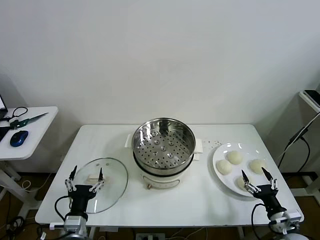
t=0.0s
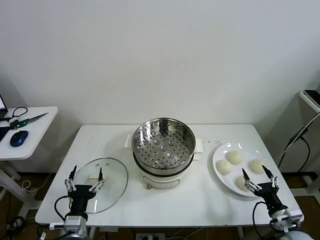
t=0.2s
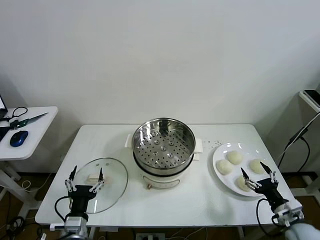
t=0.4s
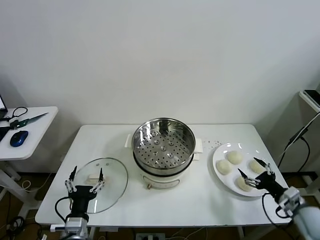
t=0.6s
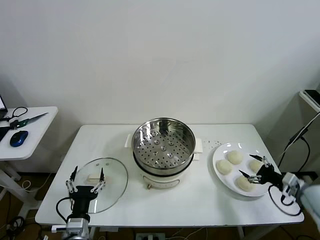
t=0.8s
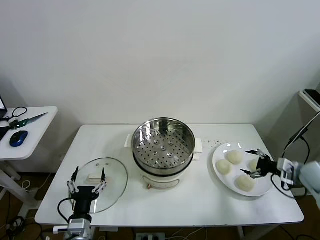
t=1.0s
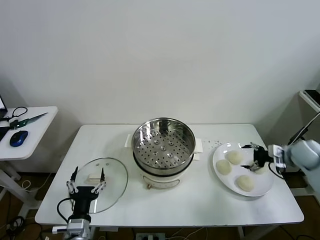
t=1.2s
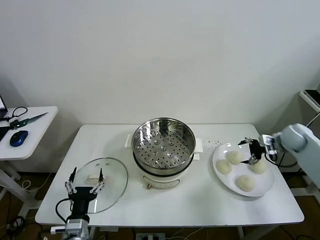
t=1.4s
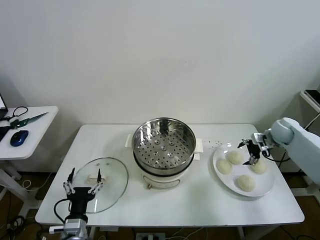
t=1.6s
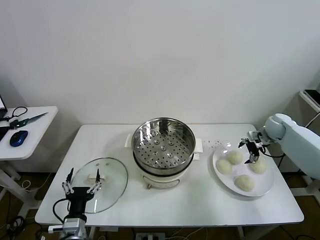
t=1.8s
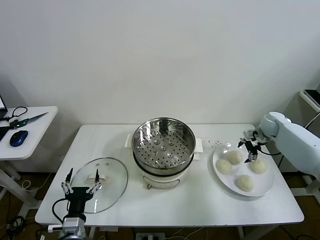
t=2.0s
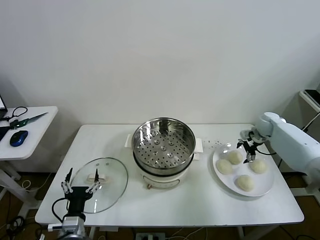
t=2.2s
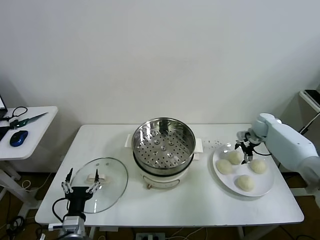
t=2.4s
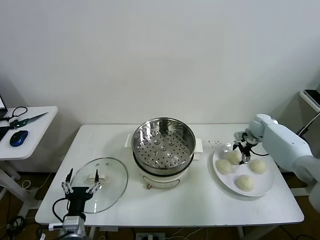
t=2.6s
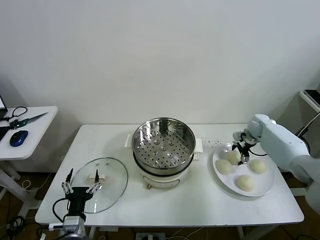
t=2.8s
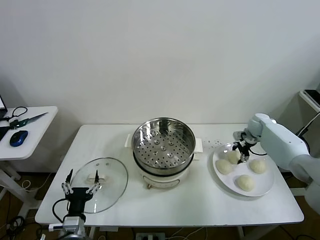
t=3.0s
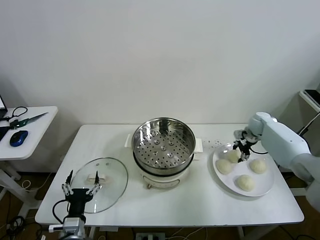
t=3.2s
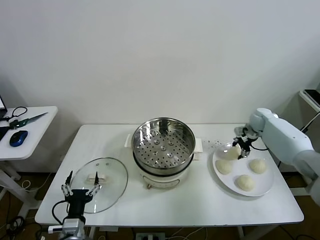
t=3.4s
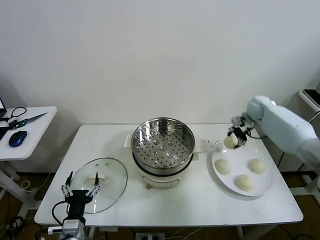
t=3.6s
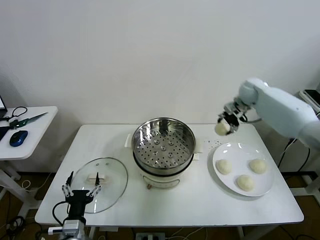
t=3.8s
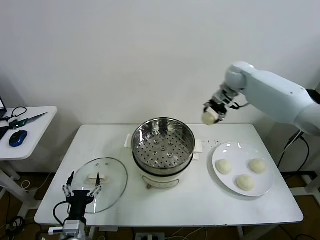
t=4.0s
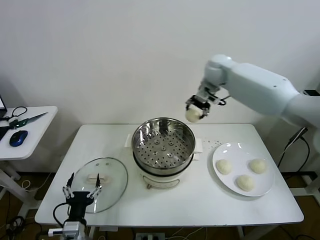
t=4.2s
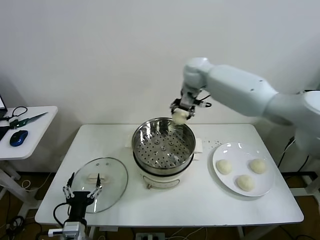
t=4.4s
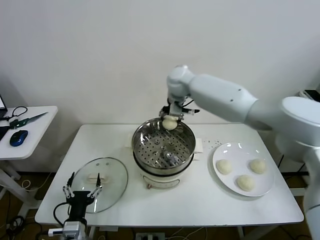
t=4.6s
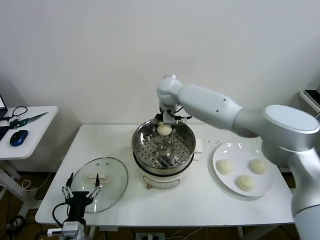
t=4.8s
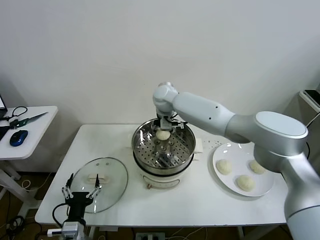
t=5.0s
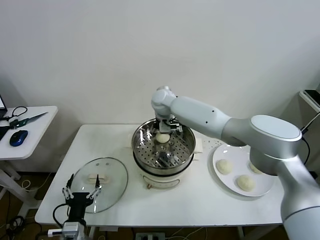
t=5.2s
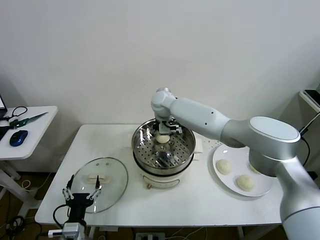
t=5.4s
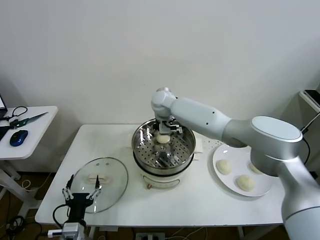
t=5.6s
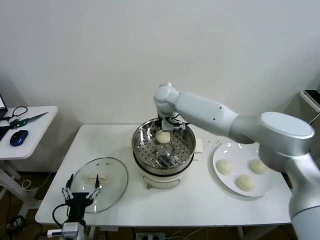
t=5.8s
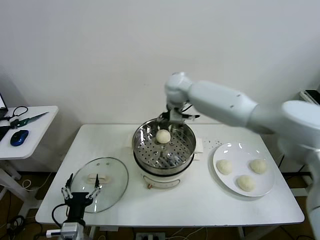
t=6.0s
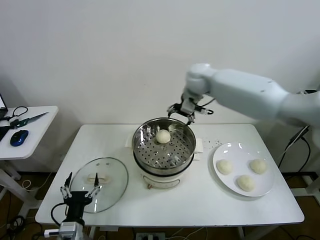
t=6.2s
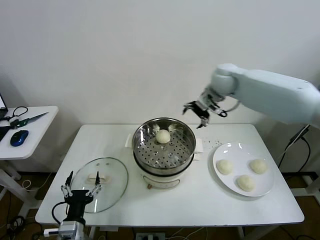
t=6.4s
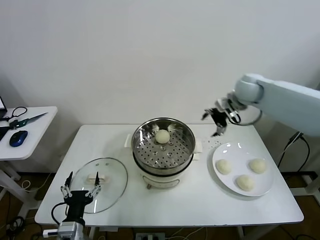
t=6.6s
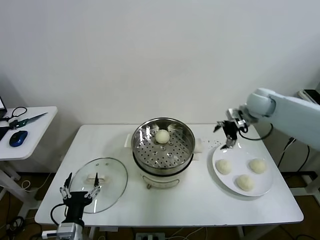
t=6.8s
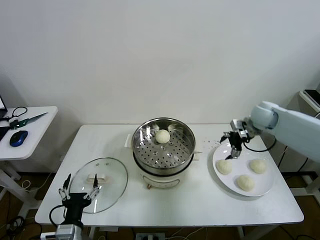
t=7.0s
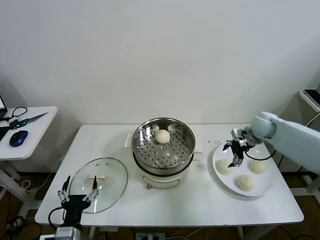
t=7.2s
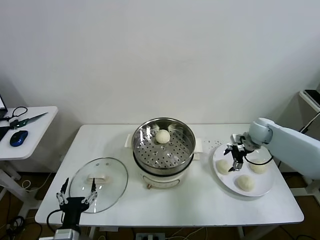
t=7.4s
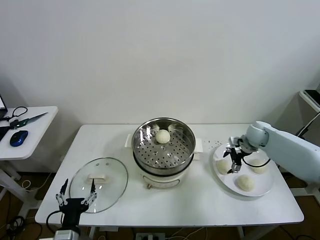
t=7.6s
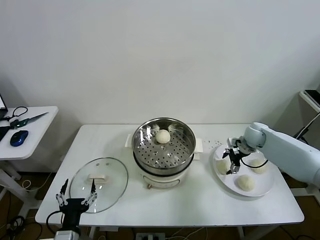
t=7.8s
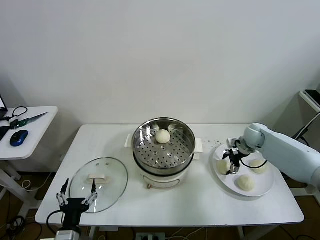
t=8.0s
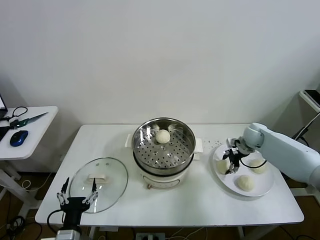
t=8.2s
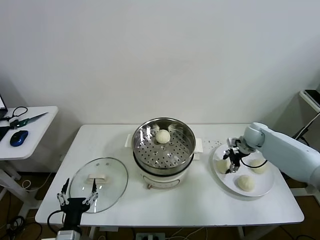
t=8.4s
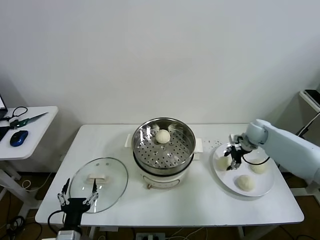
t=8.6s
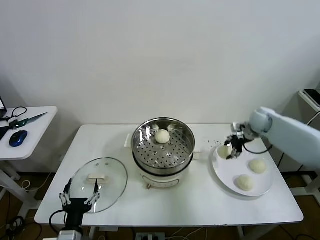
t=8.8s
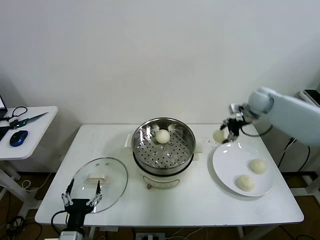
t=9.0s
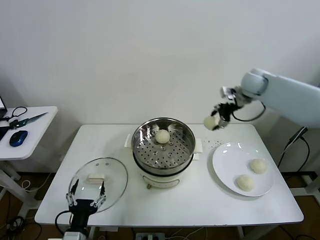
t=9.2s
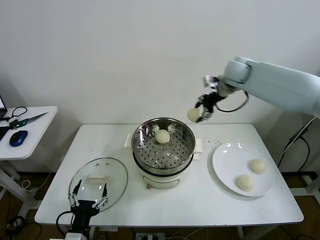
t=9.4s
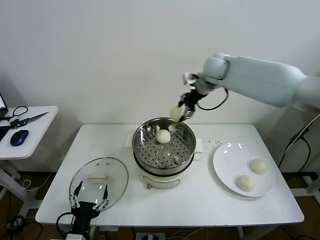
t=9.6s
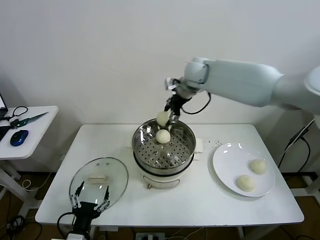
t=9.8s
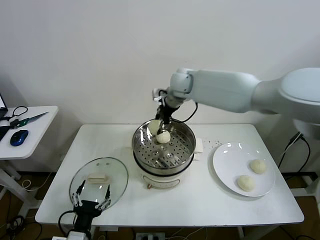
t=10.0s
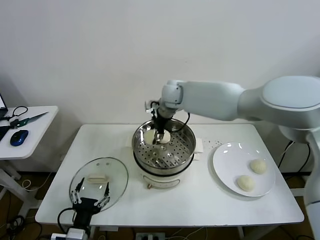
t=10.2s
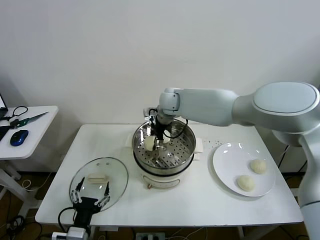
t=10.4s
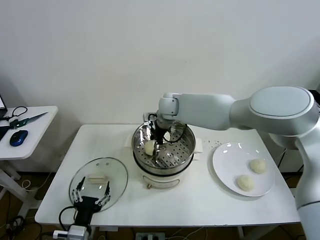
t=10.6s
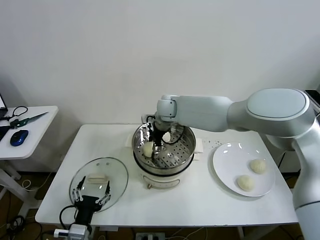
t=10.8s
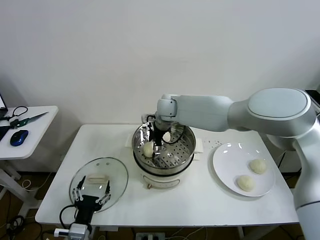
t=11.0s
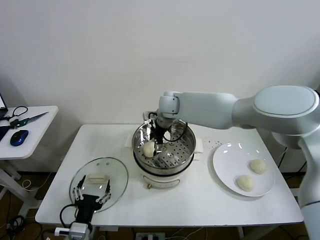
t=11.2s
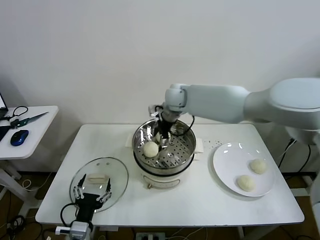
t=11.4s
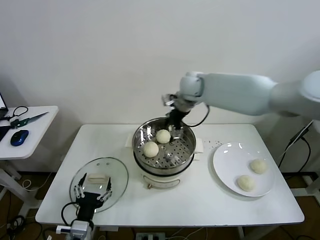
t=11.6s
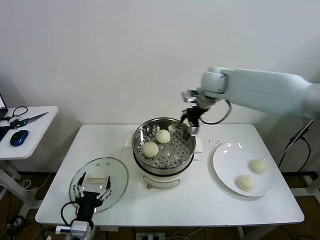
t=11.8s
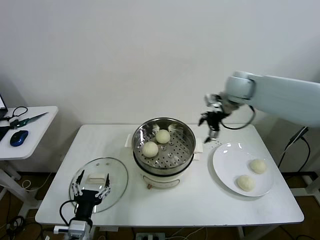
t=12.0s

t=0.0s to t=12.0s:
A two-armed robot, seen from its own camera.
Task of the whole recording: take steamed baozi put them in steamer then cover it.
Step, t=0.0s to t=3.0s: Grasp the baozi in the plate with right gripper.
Step, t=3.2s to t=5.6s: Place the baozi on the steamer with right gripper.
Step, t=6.0s to t=8.2s: Grasp the baozi in the plate with right gripper.
Step, t=8.6s to t=11.0s: Place the baozi on the steamer with right gripper.
t=1.6s to t=3.0s: The right gripper travels forward by roughly 5 cm, and closes up.
t=3.0s to t=4.4s: The right gripper goes roughly 40 cm to the left and upward.
t=4.4s to t=6.0s: The right gripper moves about 10 cm downward and comes back, and opens up.
t=6.0s to t=7.6s: The right gripper is displaced to the right and downward by approximately 35 cm.
t=7.6s to t=9.0s: The right gripper goes some 15 cm upward, and closes.
t=9.0s to t=10.4s: The right gripper heads to the left, covering roughly 30 cm.
t=10.4s to t=12.0s: The right gripper is displaced to the right by roughly 25 cm, and opens up.

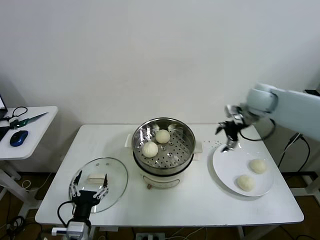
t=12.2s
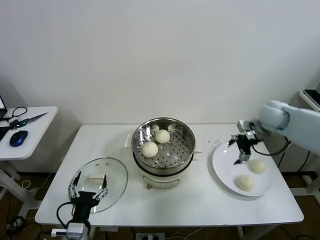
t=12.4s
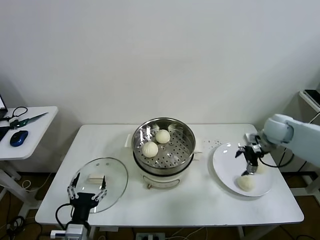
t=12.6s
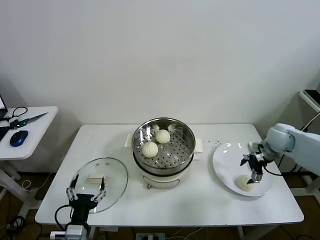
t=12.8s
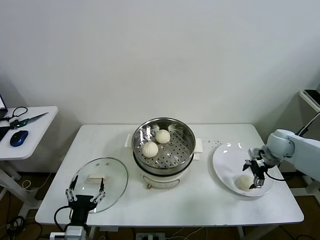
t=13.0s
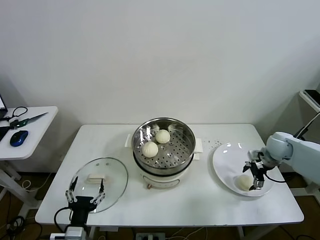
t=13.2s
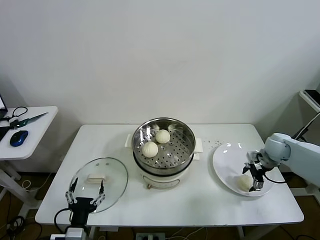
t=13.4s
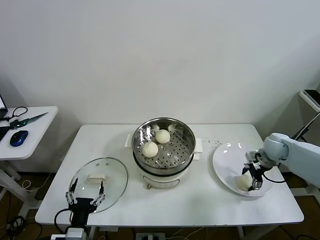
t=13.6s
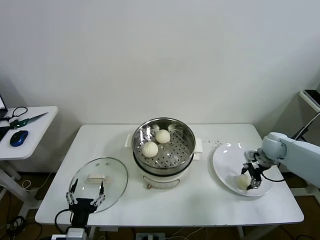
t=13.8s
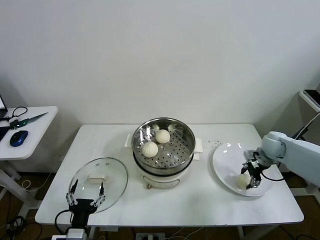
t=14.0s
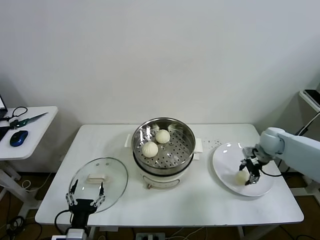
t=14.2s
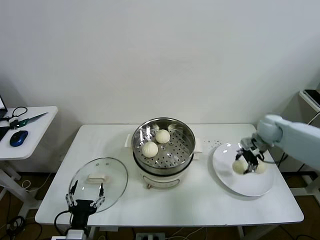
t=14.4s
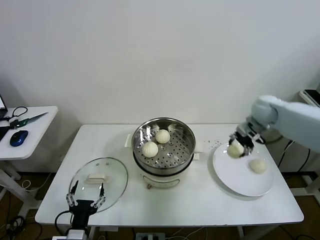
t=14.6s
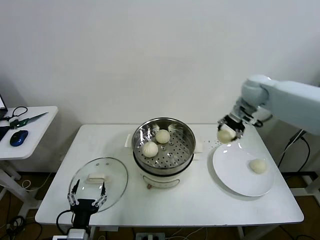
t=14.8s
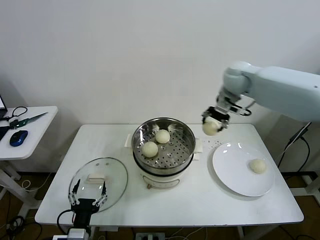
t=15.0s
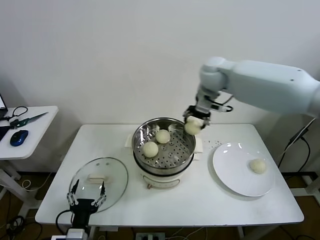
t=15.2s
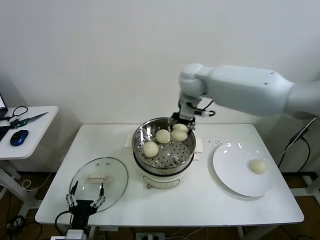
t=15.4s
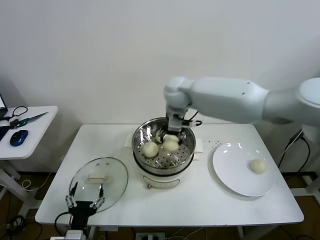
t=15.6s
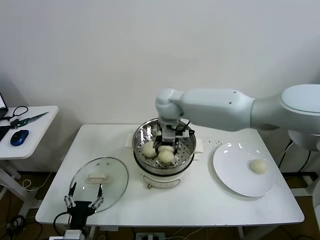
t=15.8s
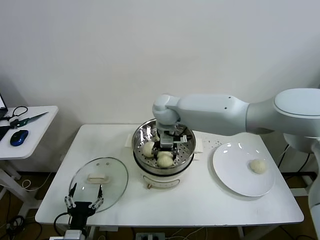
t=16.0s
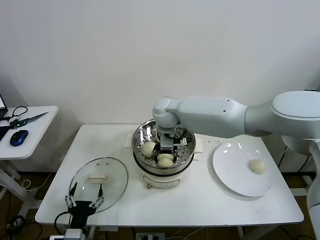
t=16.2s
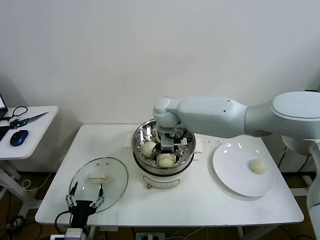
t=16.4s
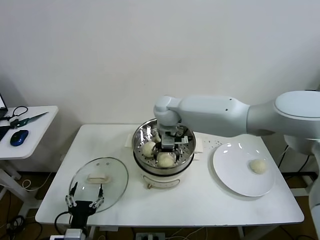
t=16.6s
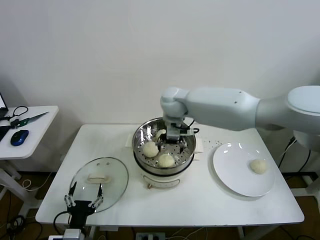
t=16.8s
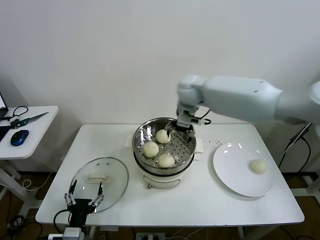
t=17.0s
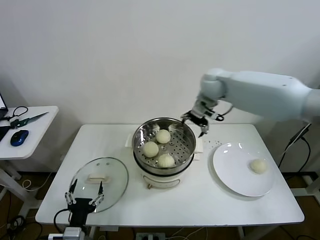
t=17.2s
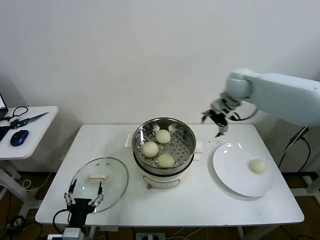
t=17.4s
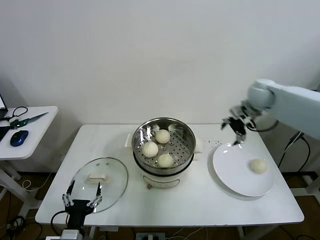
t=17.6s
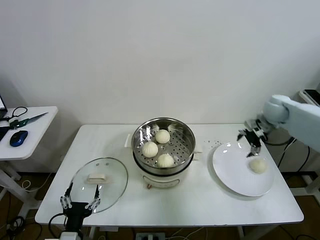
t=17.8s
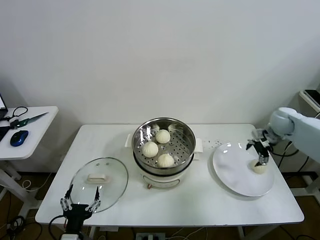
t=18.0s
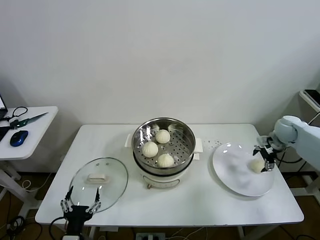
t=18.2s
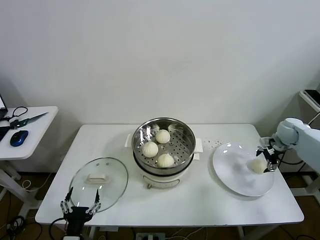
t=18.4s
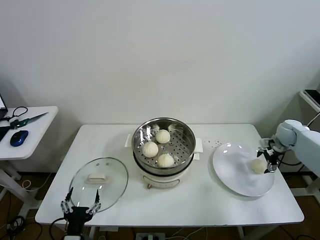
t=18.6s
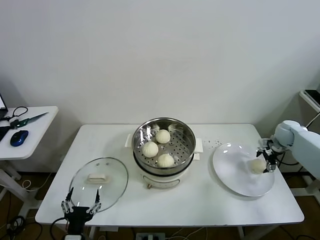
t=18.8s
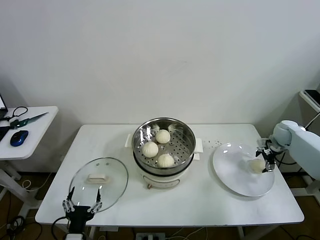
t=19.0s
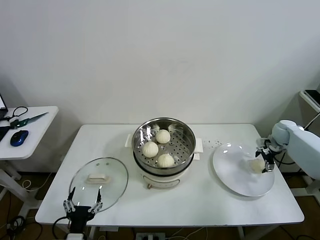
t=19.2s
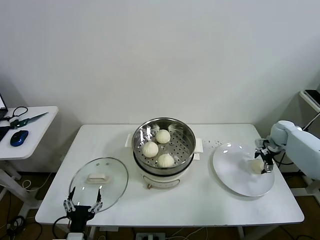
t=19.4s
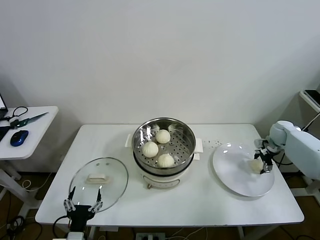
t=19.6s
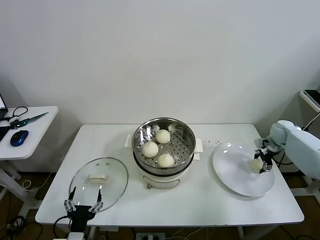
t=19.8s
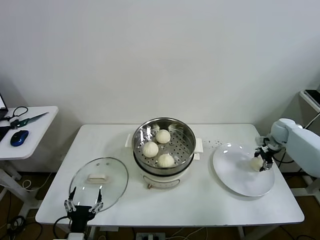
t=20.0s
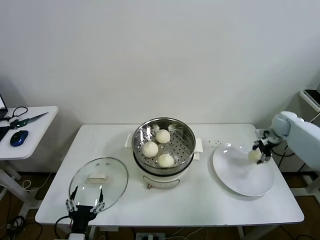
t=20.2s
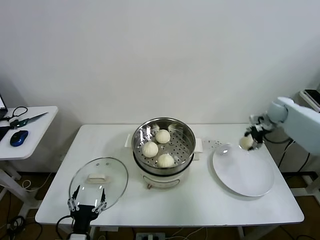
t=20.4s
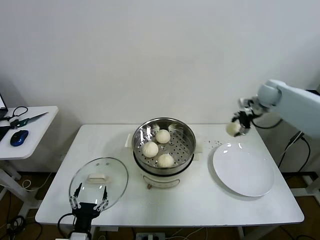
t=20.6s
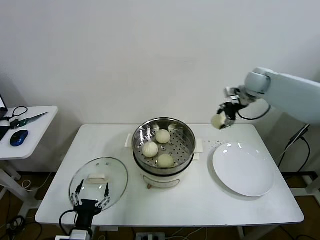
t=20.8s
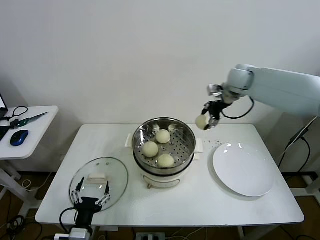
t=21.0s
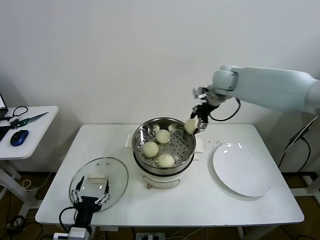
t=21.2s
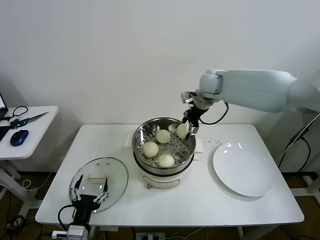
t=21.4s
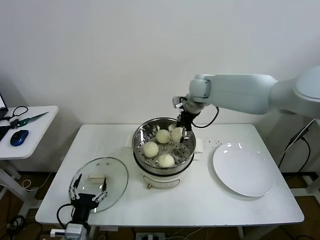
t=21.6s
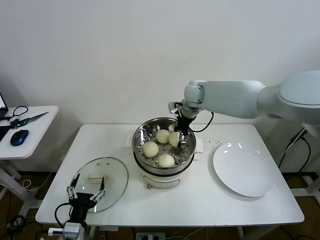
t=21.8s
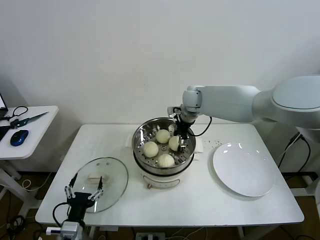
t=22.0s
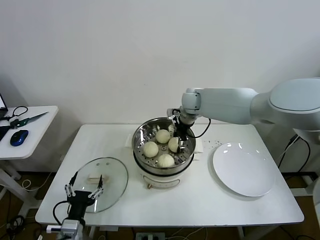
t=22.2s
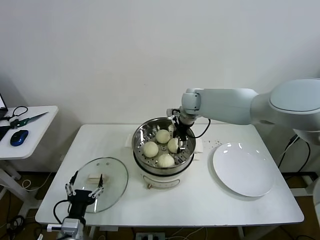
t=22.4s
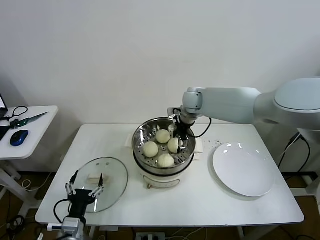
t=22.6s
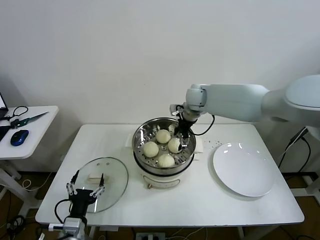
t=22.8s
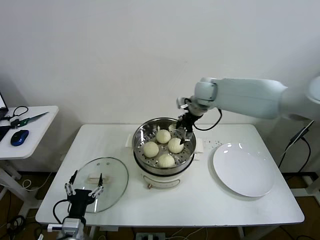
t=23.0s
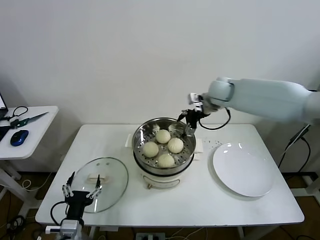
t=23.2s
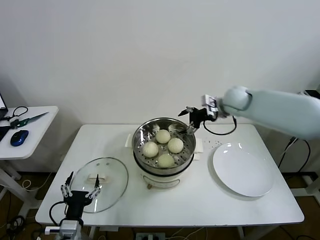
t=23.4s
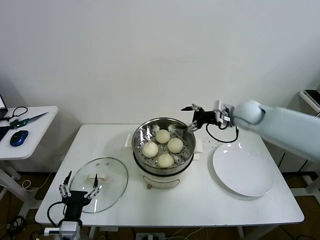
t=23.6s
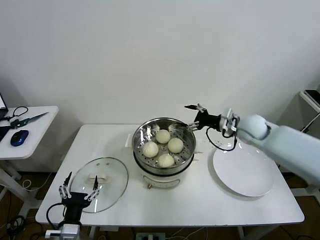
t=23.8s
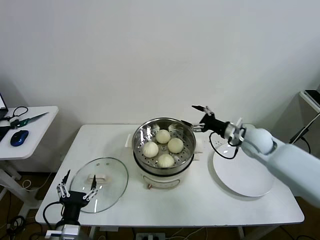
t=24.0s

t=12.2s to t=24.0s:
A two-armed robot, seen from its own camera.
Task of the whole recording: take steamed baozi put them in steamer then cover it.
Step, t=12.2s to t=14.0s: Grasp the baozi in the plate with right gripper.
Step, t=14.2s to t=16.6s: Place the baozi on the steamer with right gripper.
Step, t=16.8s to t=19.8s: Grasp the baozi in the plate with right gripper.
Step, t=20.0s to t=22.6s: Place the baozi on the steamer with right gripper.
t=12.2s to t=13.6s: The right gripper moves downward and to the right, some 20 cm, and closes up.
t=13.6s to t=15.2s: The right gripper goes roughly 40 cm to the left and upward, and closes up.
t=15.2s to t=16.6s: The right gripper travels to the left and downward by some 15 cm, and opens its fingers.
t=16.6s to t=18.2s: The right gripper travels to the right by about 50 cm.
t=18.2s to t=19.6s: The right gripper goes about 5 cm downward, and closes up.
t=19.6s to t=21.0s: The right gripper moves upward and to the left, roughly 35 cm.
t=21.0s to t=22.6s: The right gripper goes about 15 cm to the left and downward, and opens up.
t=22.6s to t=24.0s: The right gripper goes some 25 cm to the right, backward and downward.
